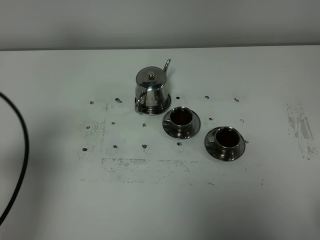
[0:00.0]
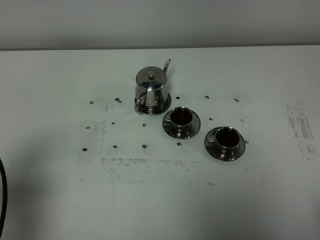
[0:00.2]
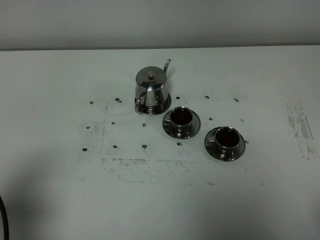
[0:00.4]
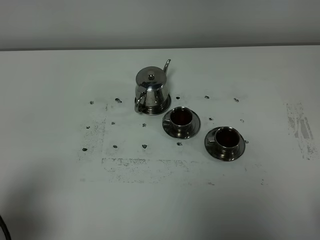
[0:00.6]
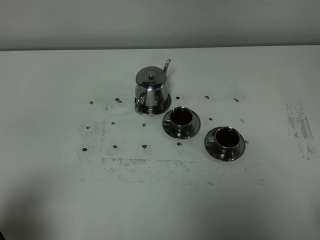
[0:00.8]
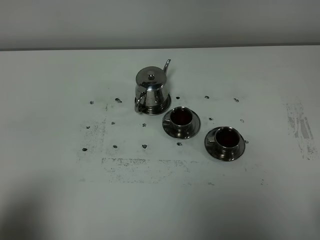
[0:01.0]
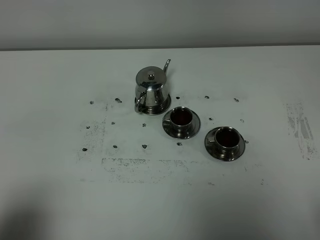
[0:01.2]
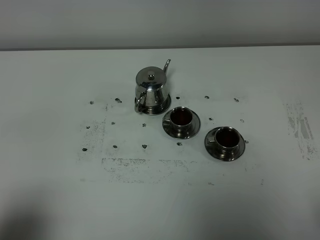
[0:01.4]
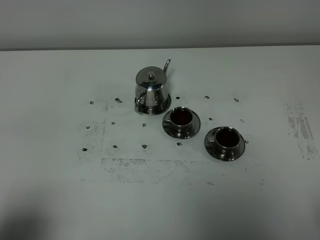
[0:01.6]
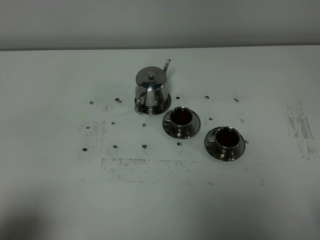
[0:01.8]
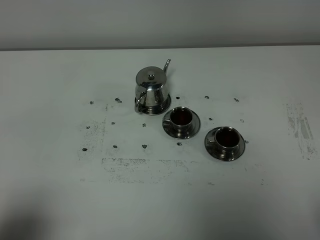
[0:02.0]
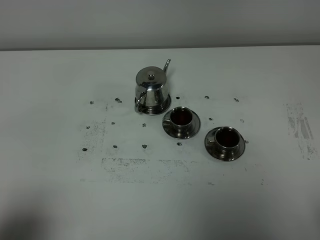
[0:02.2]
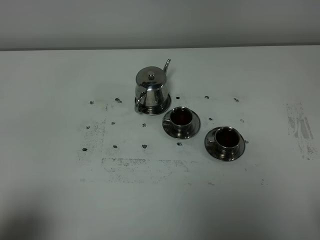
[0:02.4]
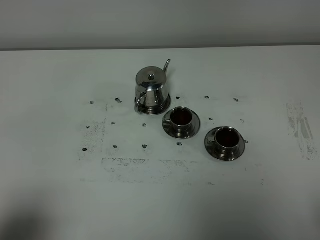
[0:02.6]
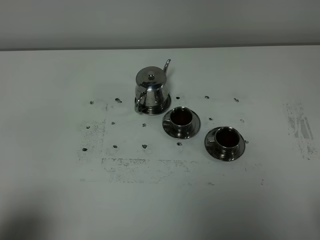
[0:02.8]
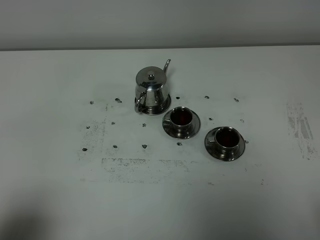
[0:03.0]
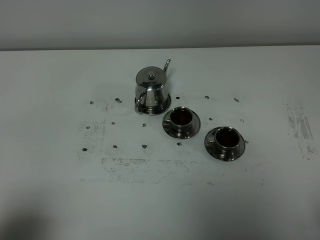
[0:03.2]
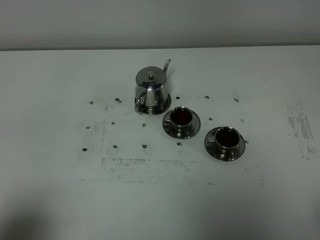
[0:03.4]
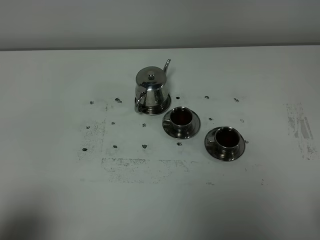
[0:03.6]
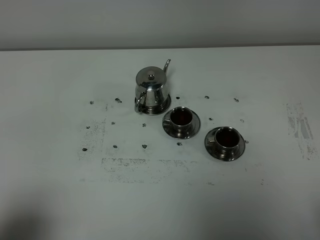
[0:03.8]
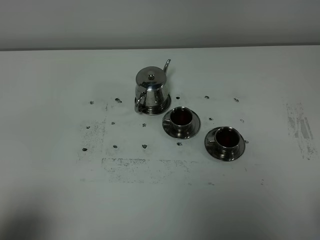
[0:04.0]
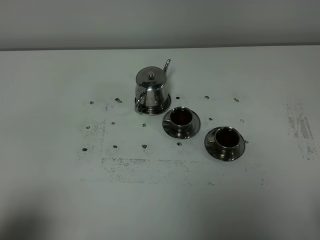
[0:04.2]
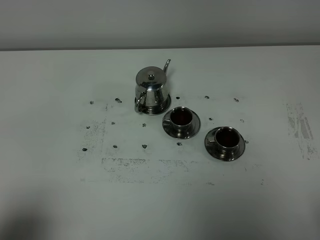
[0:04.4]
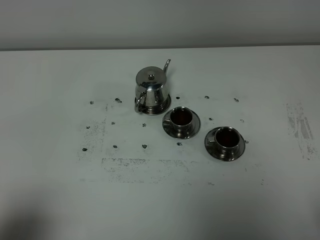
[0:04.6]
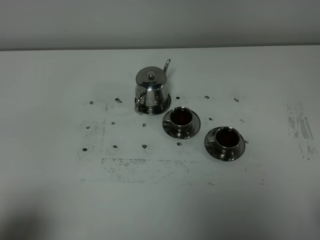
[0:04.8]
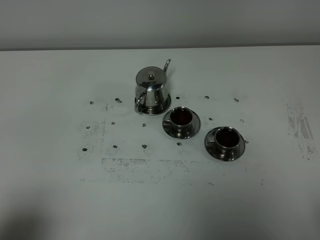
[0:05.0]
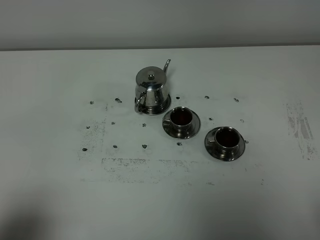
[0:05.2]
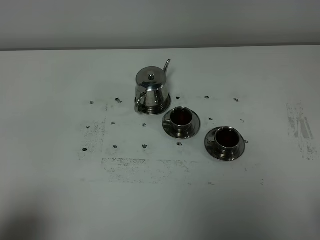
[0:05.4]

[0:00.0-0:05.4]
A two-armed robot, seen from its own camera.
Task of the whole recording: grasp the stainless steel teapot and pour the tea into the two stainless steel teacups one by one, put the stainless steel teapot back in its original place.
0:00.0 to 0:01.4: The left gripper goes approximately 15 cm backward.
0:01.4 to 0:05.4: Both grippers stay put.

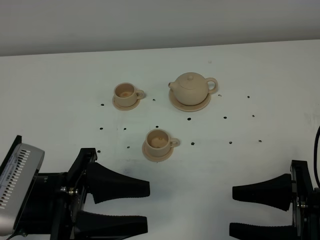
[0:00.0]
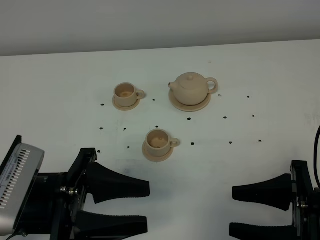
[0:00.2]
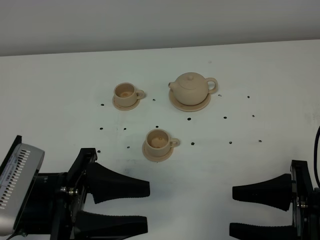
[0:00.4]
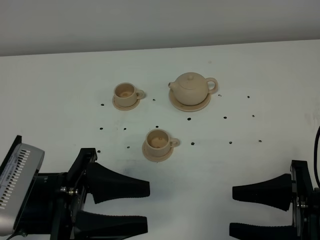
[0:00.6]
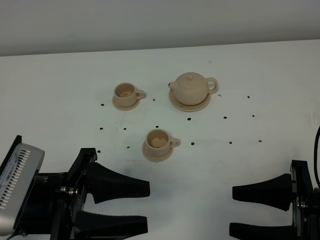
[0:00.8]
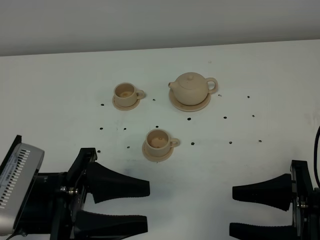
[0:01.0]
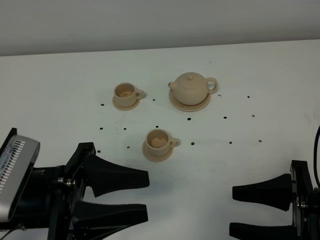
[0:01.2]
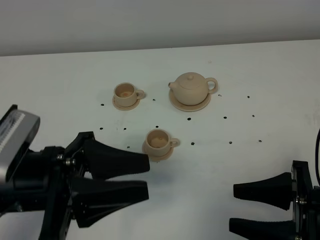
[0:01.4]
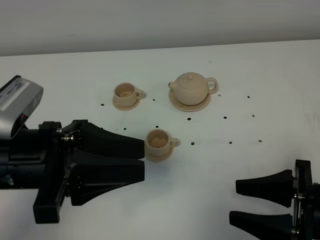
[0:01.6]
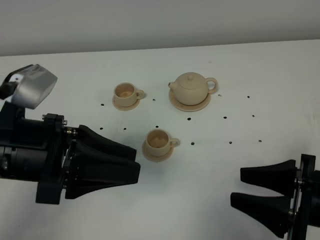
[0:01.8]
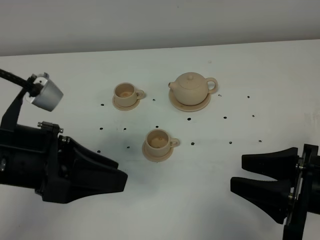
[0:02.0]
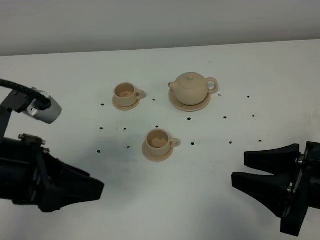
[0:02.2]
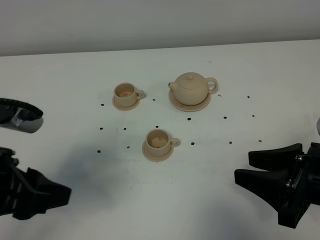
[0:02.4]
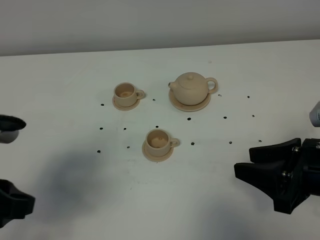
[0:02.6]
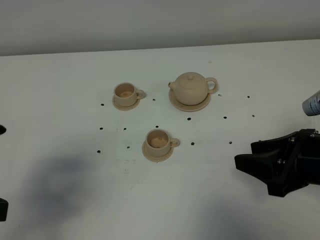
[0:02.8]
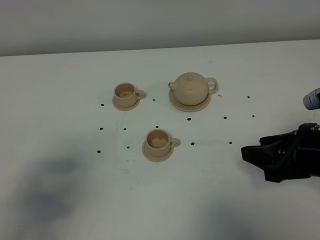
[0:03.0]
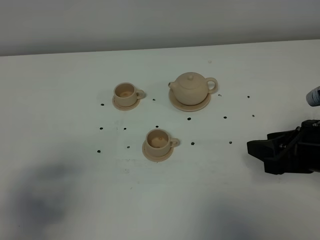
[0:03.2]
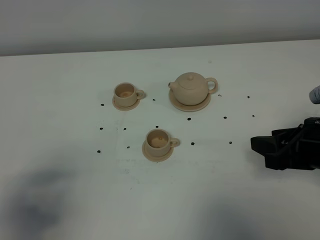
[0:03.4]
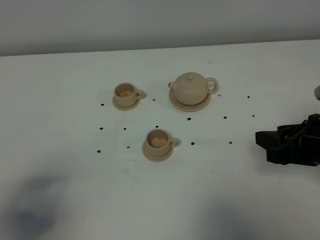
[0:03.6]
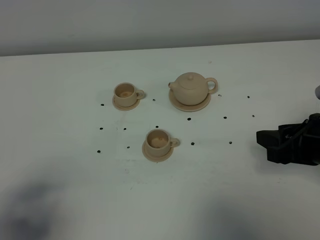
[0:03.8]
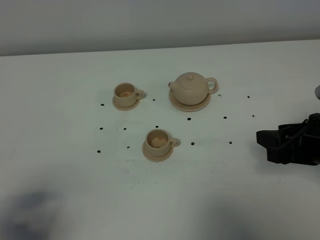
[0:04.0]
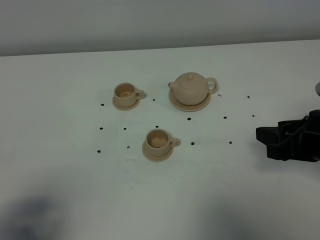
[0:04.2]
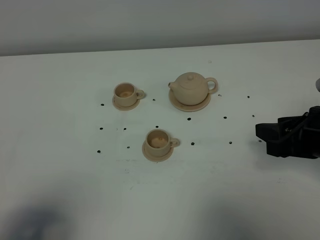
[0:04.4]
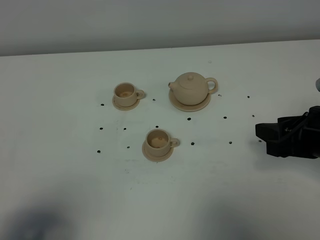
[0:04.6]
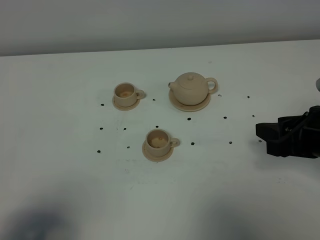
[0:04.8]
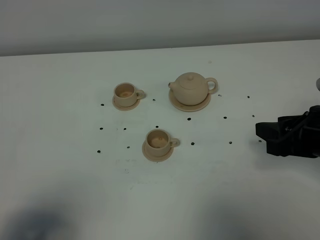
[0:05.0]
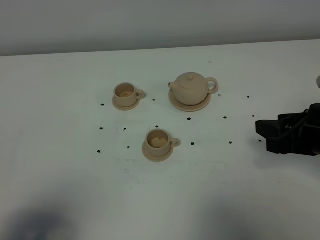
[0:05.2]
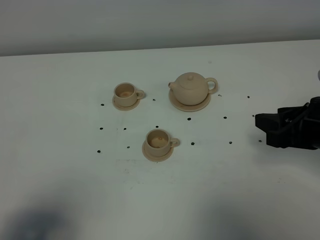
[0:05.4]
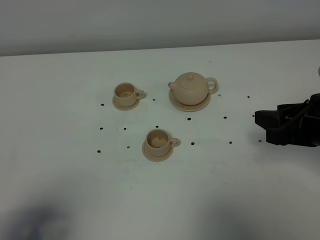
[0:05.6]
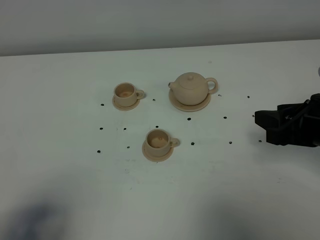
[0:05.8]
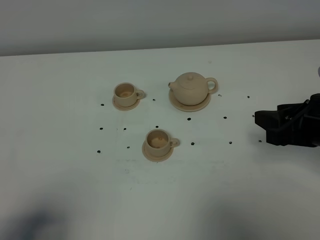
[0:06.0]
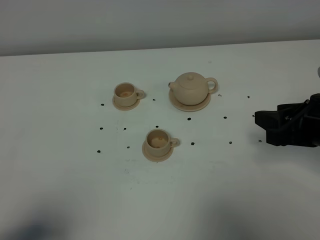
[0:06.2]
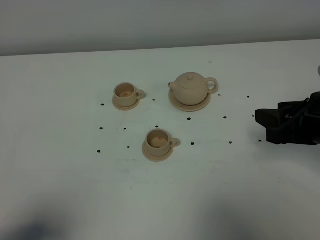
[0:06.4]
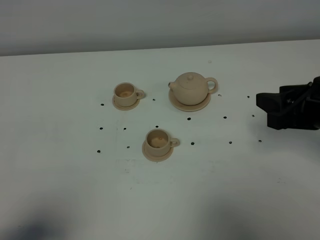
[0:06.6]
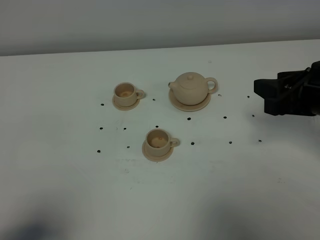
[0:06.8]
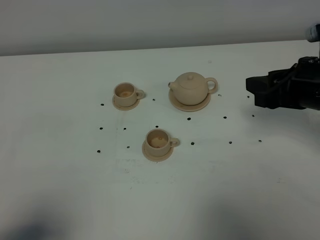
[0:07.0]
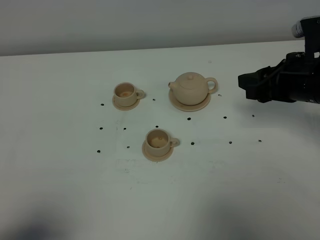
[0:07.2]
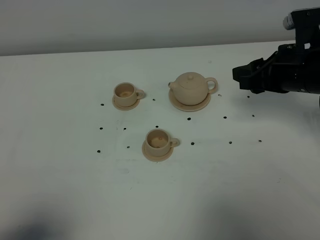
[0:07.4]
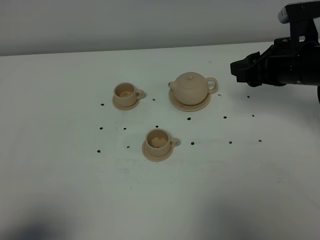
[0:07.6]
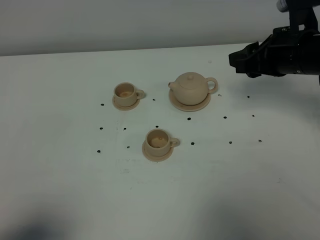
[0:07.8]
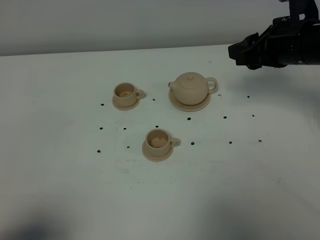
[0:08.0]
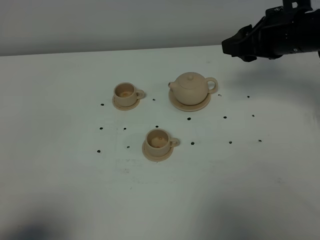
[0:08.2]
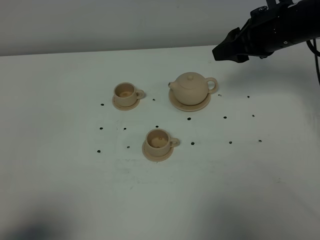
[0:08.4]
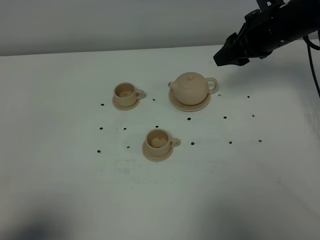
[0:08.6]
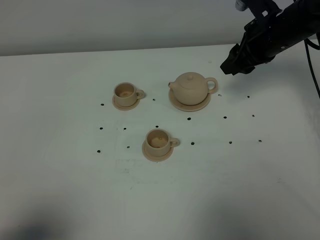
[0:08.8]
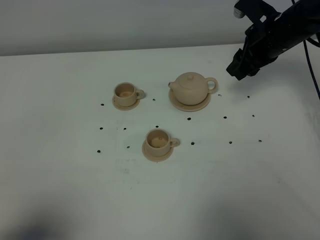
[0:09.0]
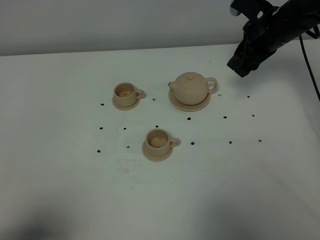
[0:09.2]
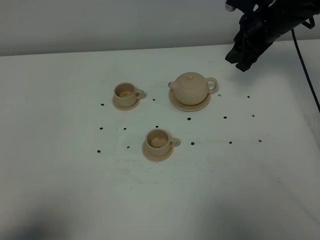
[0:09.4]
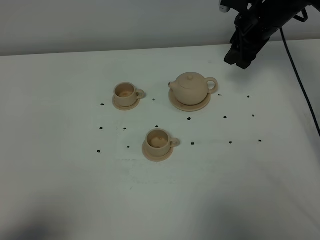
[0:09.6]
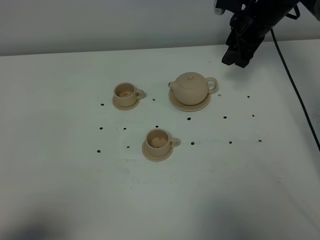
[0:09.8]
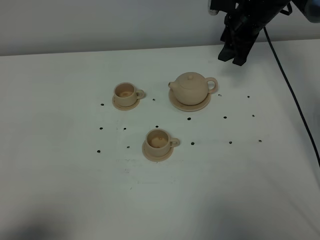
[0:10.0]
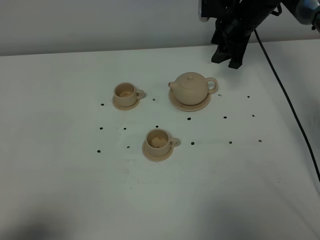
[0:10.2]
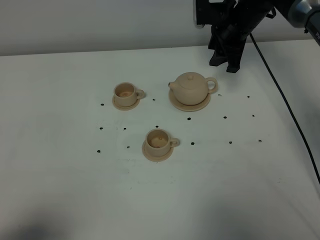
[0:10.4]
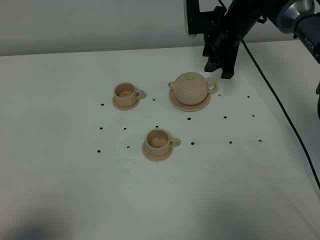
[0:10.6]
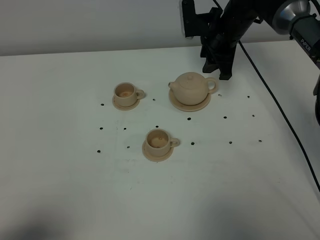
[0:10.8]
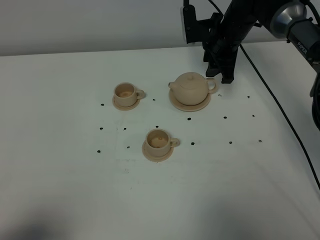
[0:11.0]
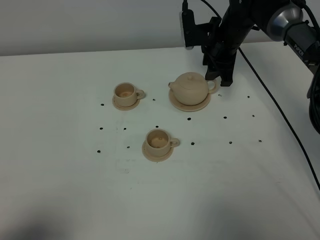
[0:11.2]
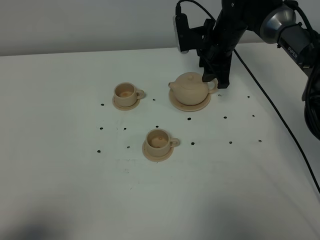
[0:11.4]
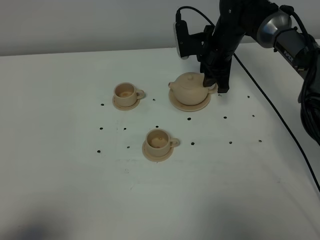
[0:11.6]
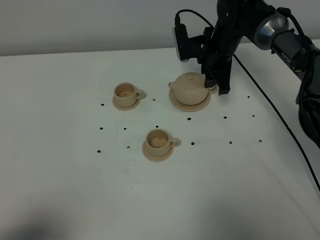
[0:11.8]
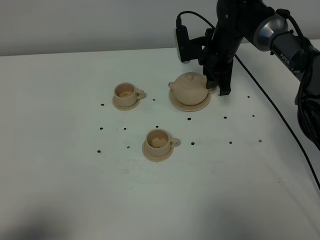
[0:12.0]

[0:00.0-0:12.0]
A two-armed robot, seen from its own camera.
Task of the whole recording: grasp the brown teapot and pour the tea into the two brown teacups one by one, put the brown teapot back in its original place.
0:00.0 to 0:01.6: The left gripper goes roughly 5 cm upward.
0:01.6 to 0:03.0: The right gripper is displaced forward by roughly 10 cm. Meanwhile the left gripper shifts roughly 15 cm to the left and backward.
0:03.0 to 0:04.4: The left gripper shifts about 5 cm backward.
0:04.4 to 0:06.0: The grippers move only a little.
0:06.0 to 0:07.6: The right gripper heads forward, covering about 10 cm.
0:07.6 to 0:09.0: The right gripper travels forward by approximately 10 cm.
0:09.0 to 0:10.4: The right gripper heads to the left and forward, covering roughly 10 cm.
0:10.4 to 0:12.0: The right gripper shifts about 5 cm downward.

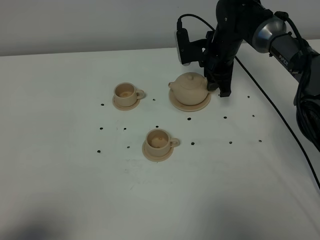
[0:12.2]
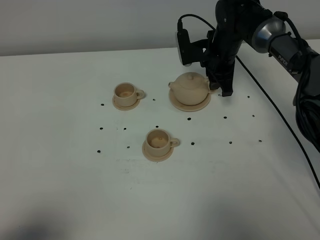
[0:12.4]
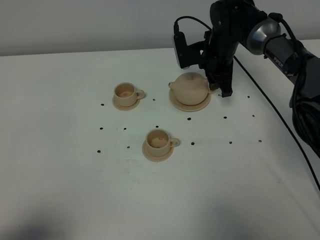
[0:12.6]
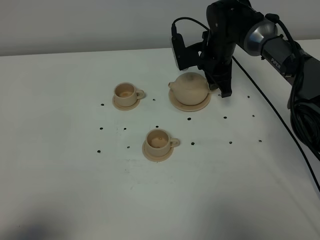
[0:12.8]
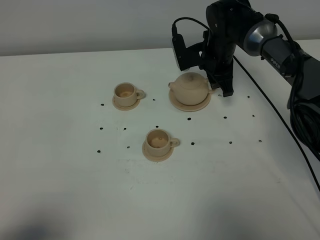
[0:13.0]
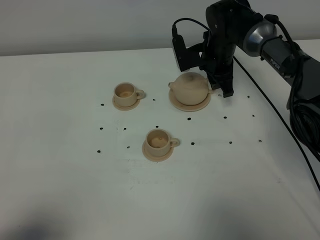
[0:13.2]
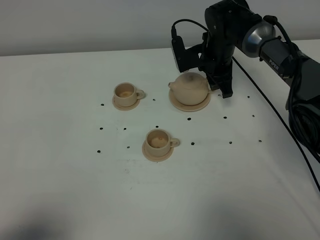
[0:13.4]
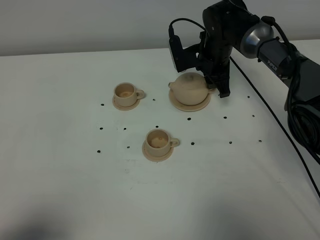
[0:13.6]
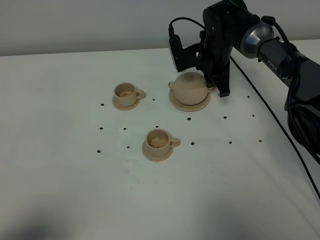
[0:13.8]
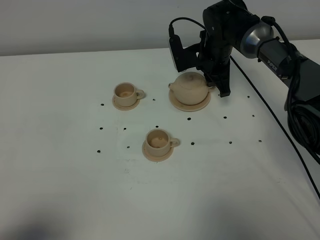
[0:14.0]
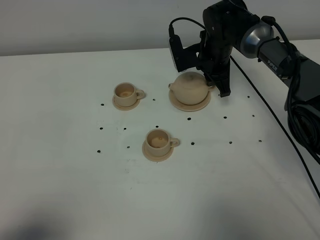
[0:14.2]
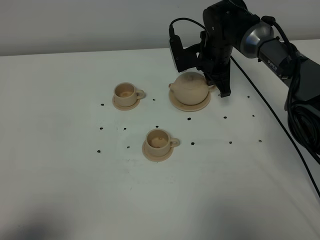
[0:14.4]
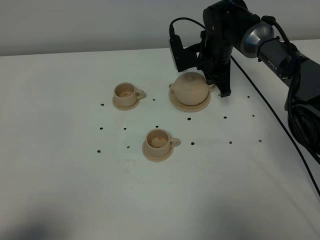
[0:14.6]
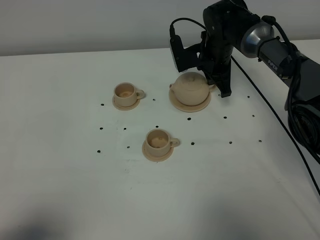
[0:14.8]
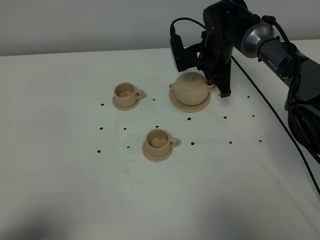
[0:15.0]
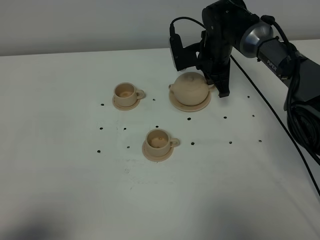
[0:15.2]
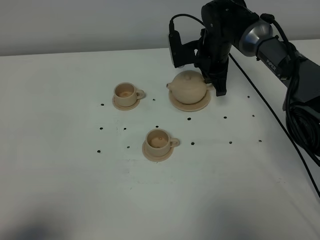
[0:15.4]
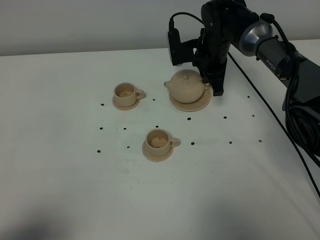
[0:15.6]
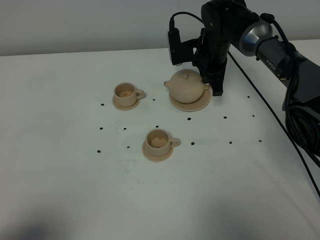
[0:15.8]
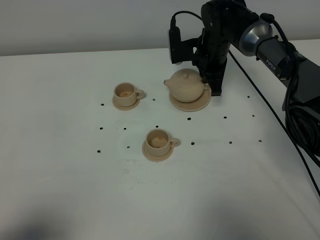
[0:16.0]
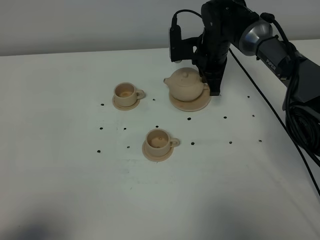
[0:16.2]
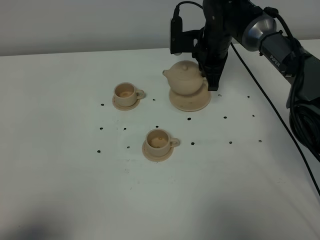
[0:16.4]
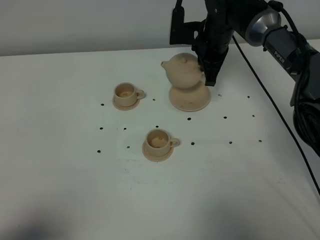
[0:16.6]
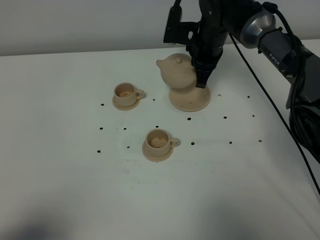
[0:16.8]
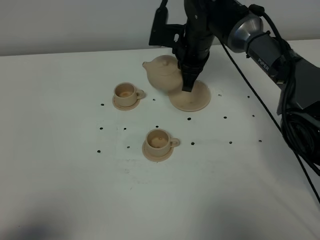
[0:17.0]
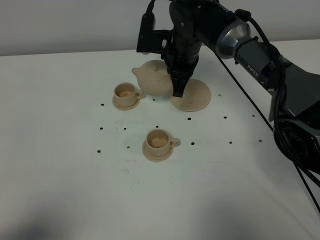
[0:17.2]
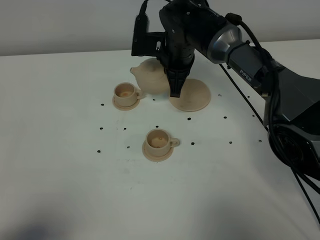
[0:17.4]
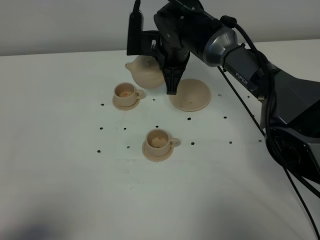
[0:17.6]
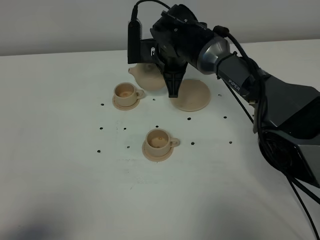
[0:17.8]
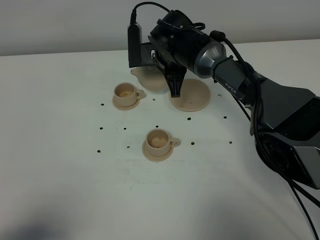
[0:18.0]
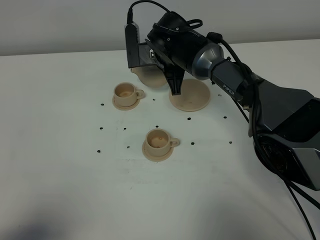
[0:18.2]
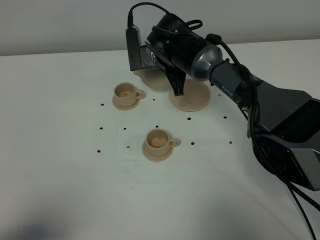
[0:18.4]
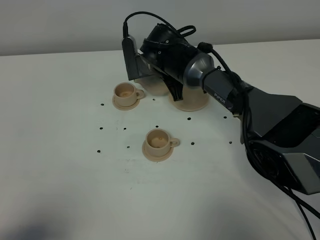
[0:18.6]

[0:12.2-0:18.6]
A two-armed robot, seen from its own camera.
Task of the whole recording: grasp the brown teapot and pour the tea into the two brown teacups one by one, put the brown teapot back in its original place.
Step, 0:12.2 to 0:16.0: Pick up the teapot with the right gripper.
0:12.2 to 0:13.8: The grippers stay close to where they were, moving slightly.
0:13.8 to 0:15.4: The right gripper closes.
0:15.4 to 0:17.0: The right gripper ends up about 5 cm from where it was.
0:17.0 to 0:18.6: The right gripper travels to the left by approximately 5 cm.
